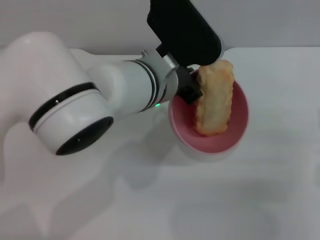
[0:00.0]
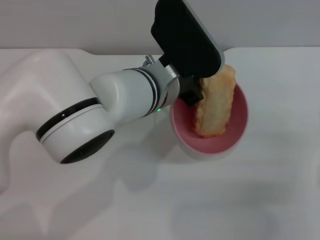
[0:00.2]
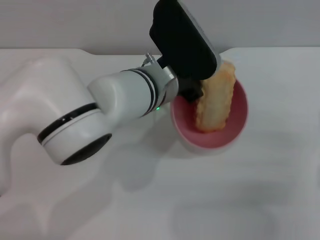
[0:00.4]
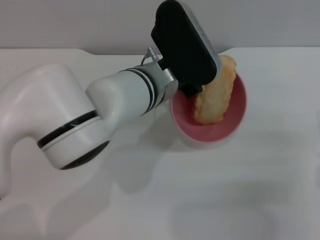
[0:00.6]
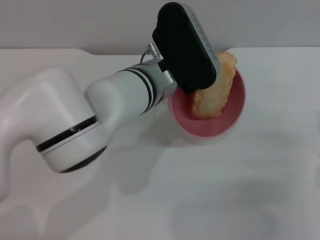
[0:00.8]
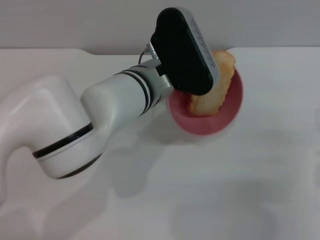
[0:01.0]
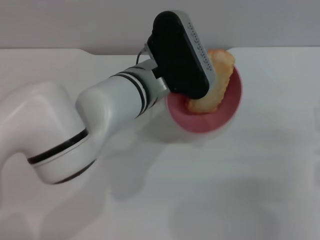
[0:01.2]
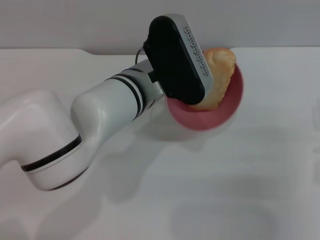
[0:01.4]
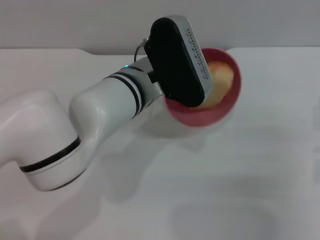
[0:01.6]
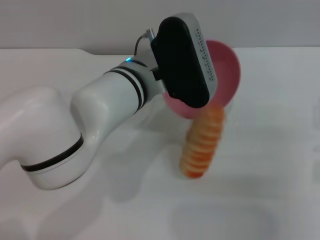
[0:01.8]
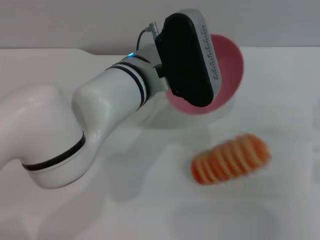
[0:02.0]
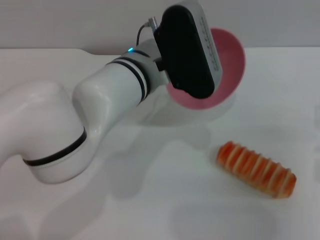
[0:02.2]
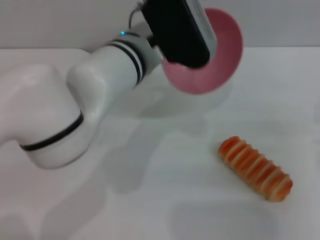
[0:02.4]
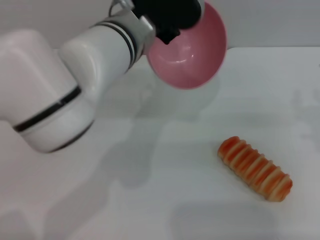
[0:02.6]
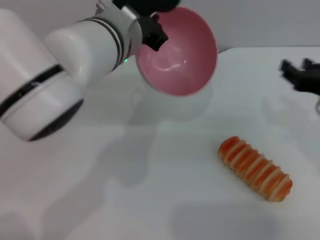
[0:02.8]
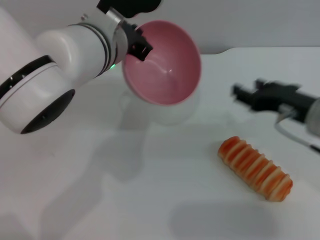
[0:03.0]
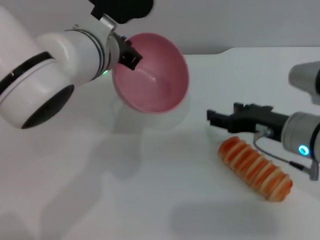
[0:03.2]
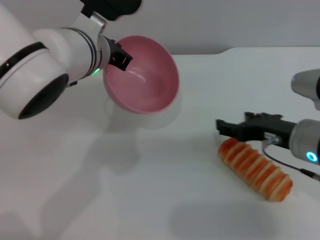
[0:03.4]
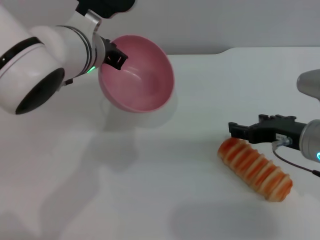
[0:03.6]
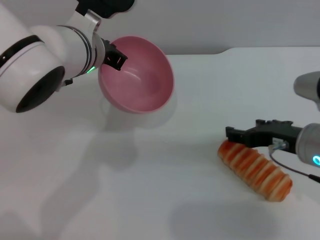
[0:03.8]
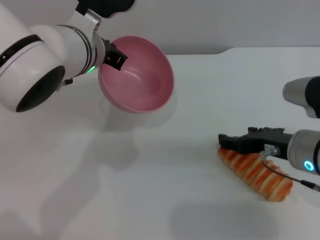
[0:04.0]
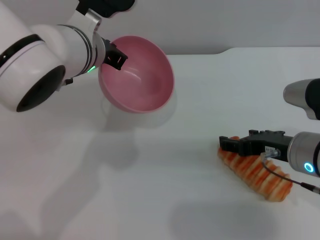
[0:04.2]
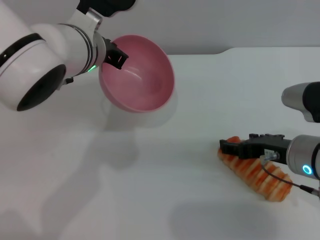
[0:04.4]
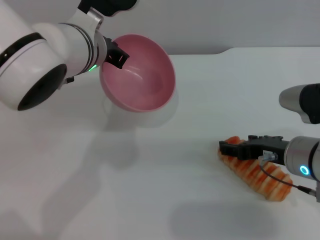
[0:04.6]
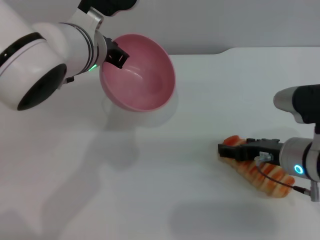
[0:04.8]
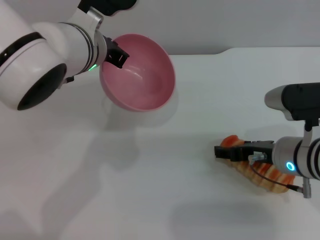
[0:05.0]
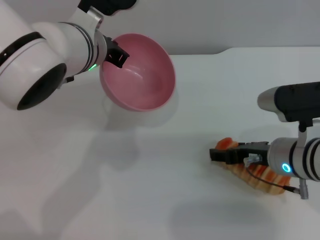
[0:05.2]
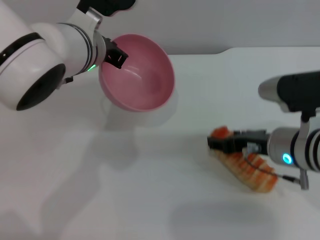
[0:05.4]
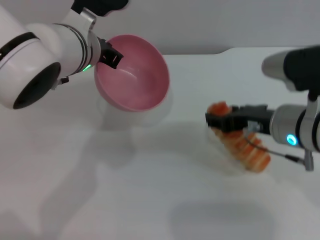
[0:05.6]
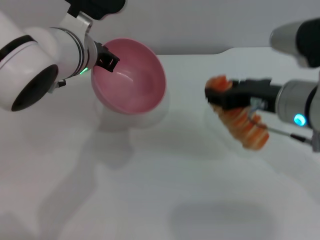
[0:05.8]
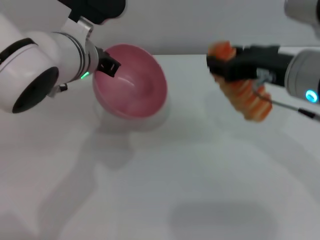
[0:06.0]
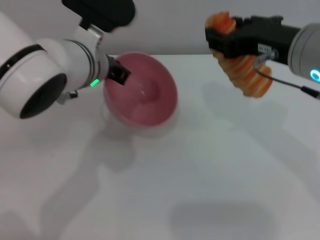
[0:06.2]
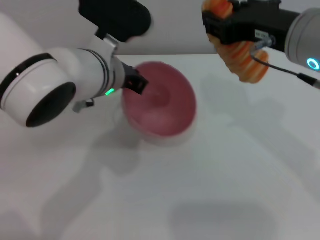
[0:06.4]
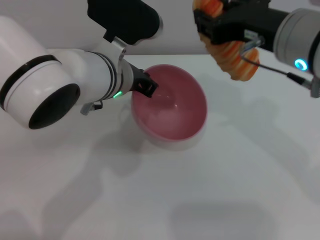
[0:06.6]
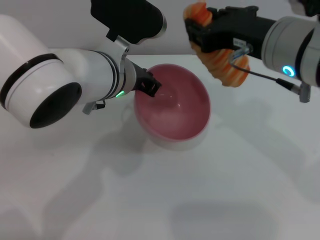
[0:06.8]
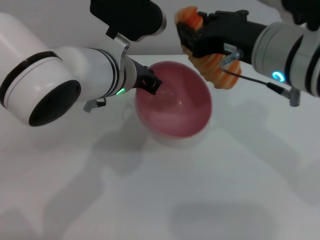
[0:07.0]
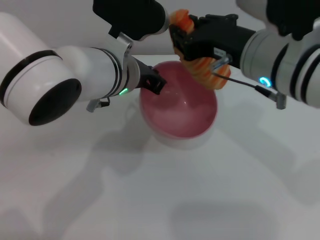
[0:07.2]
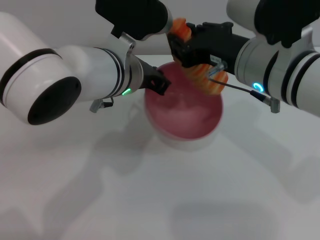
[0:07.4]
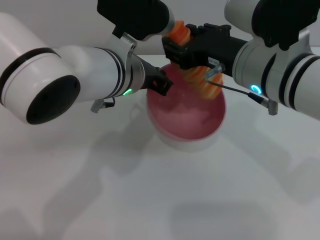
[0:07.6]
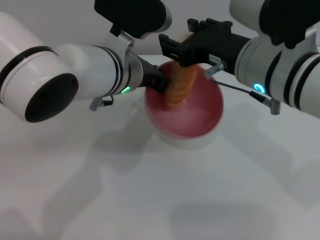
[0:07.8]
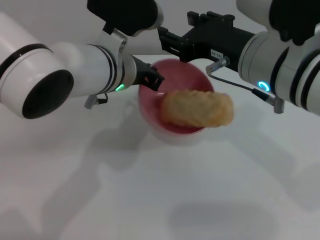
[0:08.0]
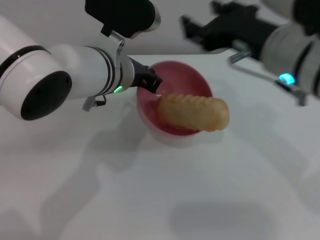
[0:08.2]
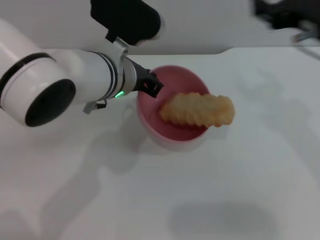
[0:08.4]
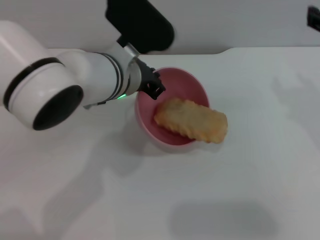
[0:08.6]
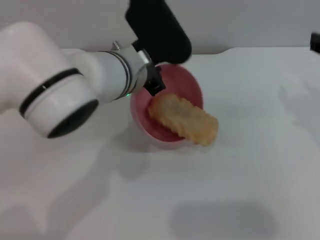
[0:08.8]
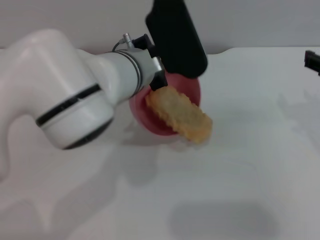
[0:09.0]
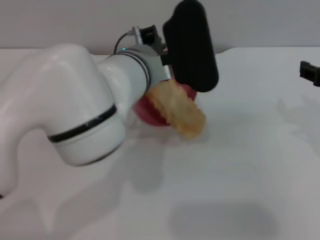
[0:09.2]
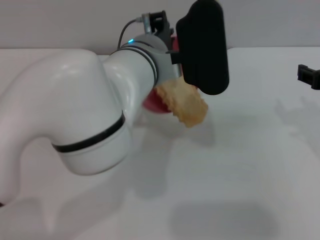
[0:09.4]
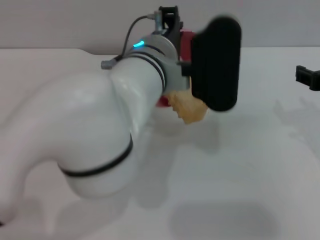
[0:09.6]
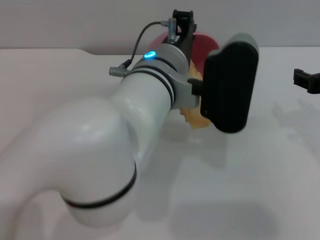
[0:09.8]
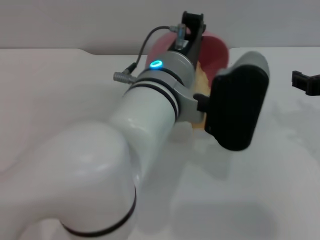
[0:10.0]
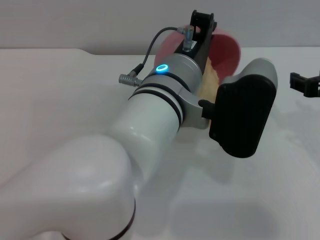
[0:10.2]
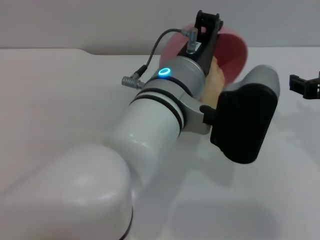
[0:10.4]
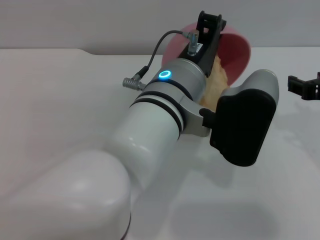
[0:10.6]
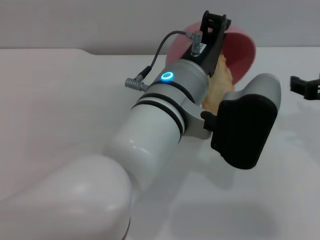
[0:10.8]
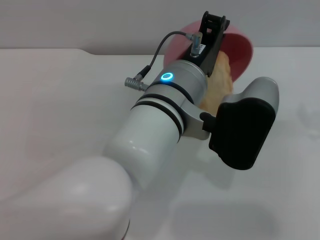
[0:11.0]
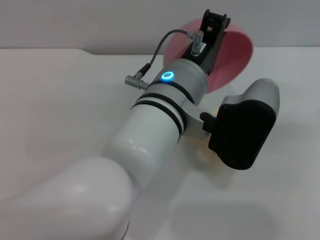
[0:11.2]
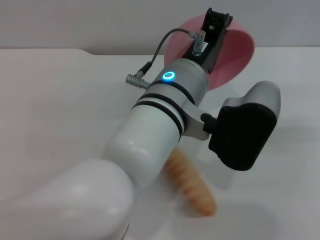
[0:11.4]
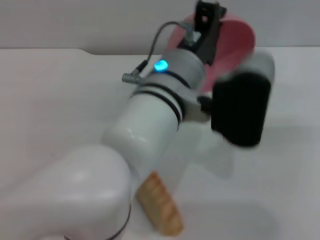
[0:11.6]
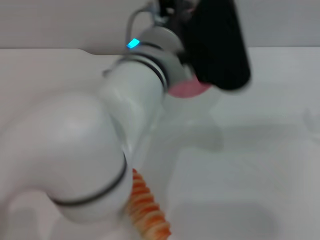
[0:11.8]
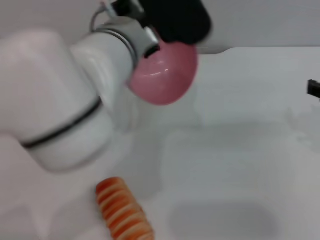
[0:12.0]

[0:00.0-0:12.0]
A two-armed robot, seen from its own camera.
Task of the whole recording: put the bread into the pink bowl and pour it out repeatedly.
Step, 0:00.0 to 0:02.2: Pour the bread out of the bowl.
Step, 0:02.4 to 0:06.0: Pick up the bread with the right gripper.
Step, 0:06.2 to 0:08.0: Place the bread into the bowl.
Step, 0:08.4 to 0:11.4: Pour the bread out of the bowl.
0:01.6 to 0:03.0: The left gripper travels upward by some 5 cm. Meanwhile the right gripper shifts roughly 5 cm to the left.
0:04.4 to 0:06.0: The right gripper moves upward, about 10 cm.
0:06.0 to 0:07.6: The right gripper shifts by some 5 cm. Meanwhile the left gripper shifts by roughly 5 cm.
0:07.6 to 0:09.0: The right gripper is displaced to the right by some 15 cm.
0:09.0 to 0:10.4: The left gripper moves backward, some 5 cm.
0:10.4 to 0:12.0: The left gripper goes about 5 cm to the left.

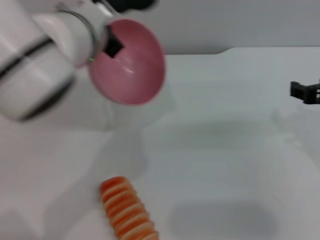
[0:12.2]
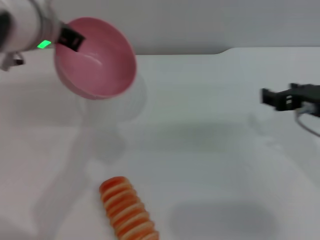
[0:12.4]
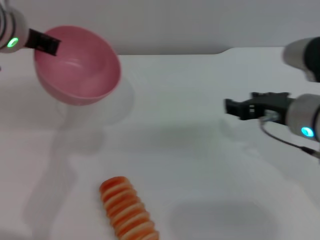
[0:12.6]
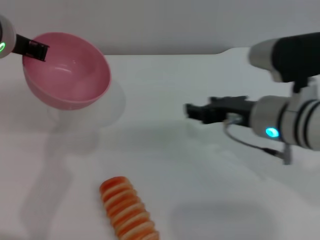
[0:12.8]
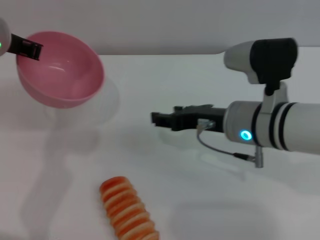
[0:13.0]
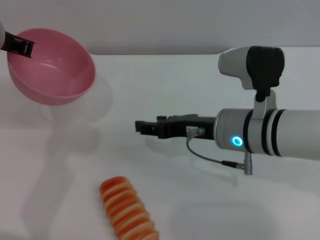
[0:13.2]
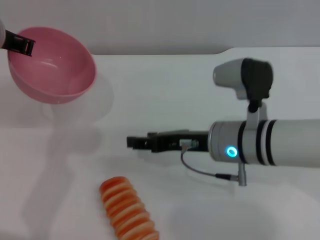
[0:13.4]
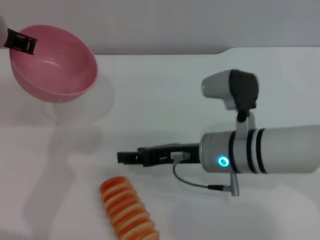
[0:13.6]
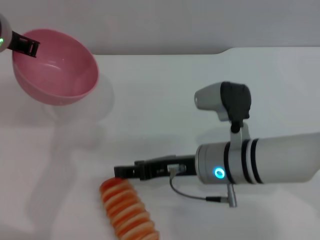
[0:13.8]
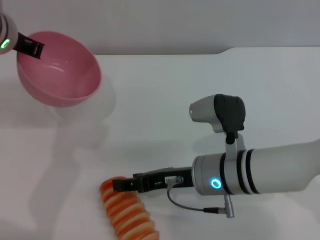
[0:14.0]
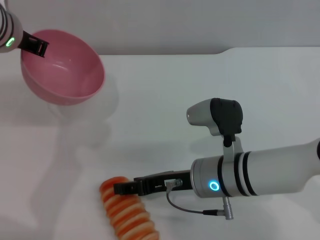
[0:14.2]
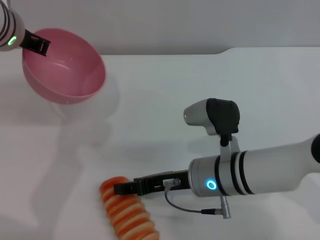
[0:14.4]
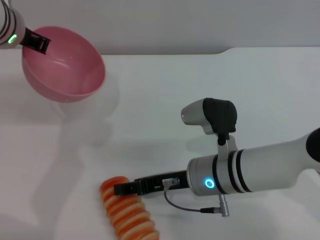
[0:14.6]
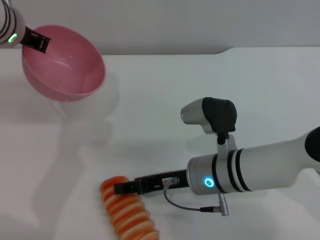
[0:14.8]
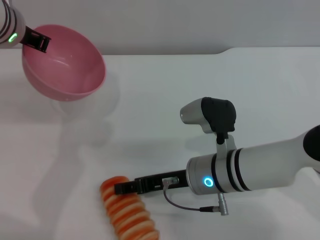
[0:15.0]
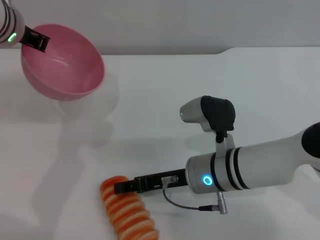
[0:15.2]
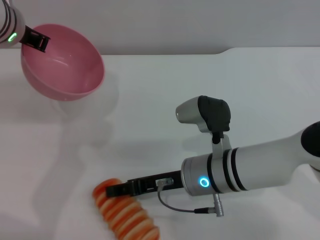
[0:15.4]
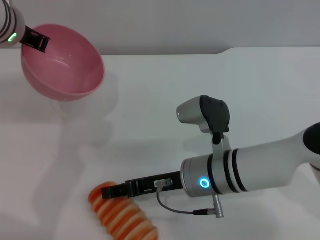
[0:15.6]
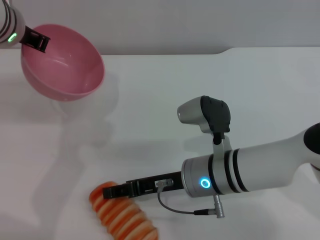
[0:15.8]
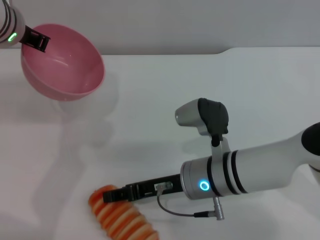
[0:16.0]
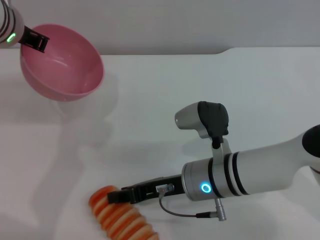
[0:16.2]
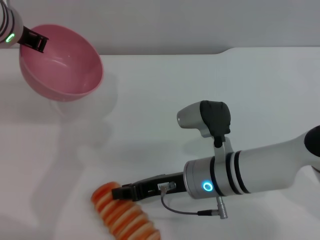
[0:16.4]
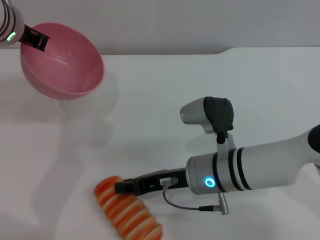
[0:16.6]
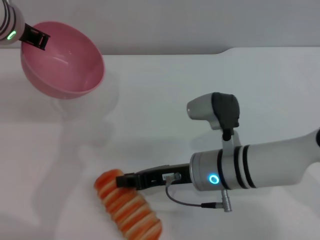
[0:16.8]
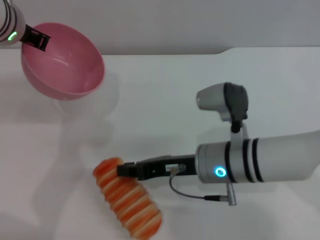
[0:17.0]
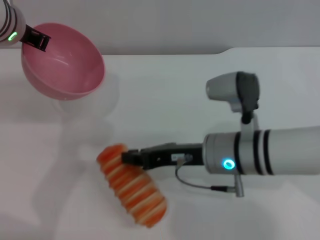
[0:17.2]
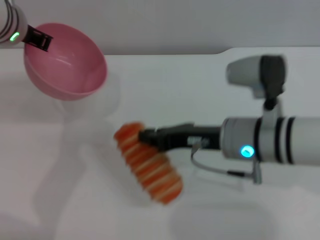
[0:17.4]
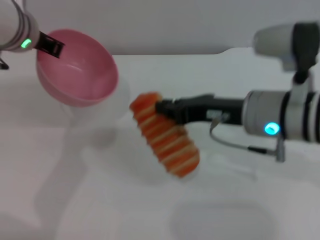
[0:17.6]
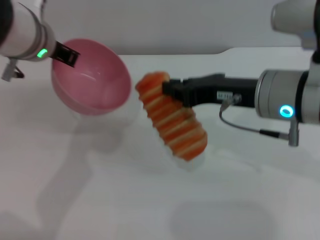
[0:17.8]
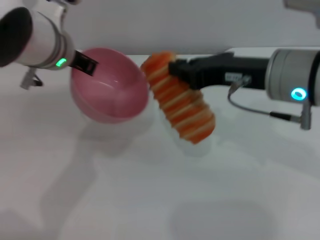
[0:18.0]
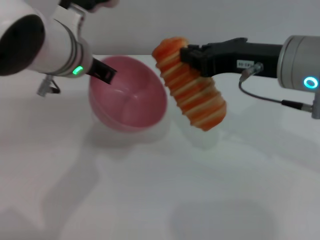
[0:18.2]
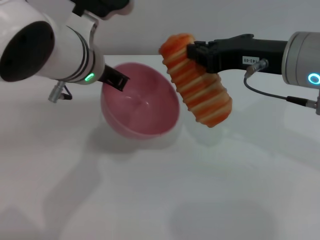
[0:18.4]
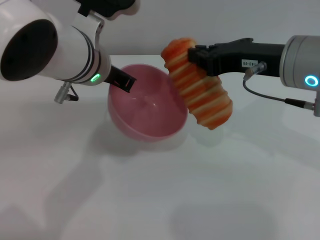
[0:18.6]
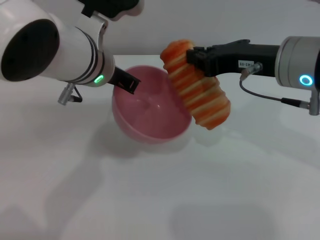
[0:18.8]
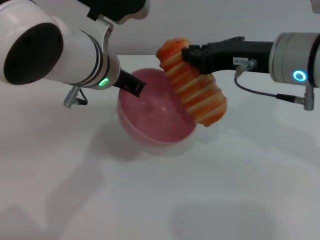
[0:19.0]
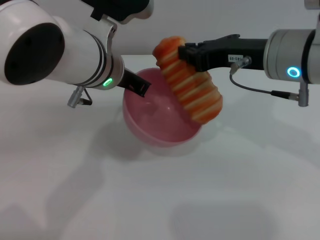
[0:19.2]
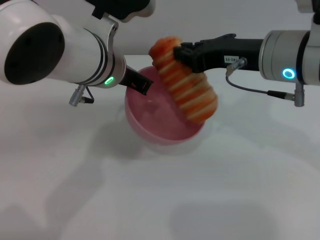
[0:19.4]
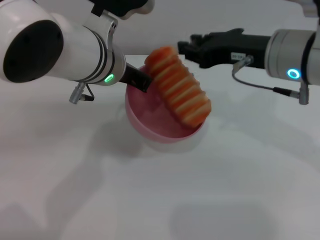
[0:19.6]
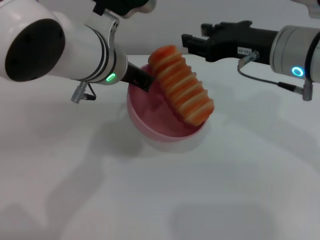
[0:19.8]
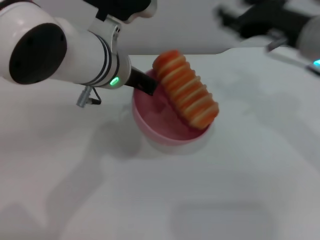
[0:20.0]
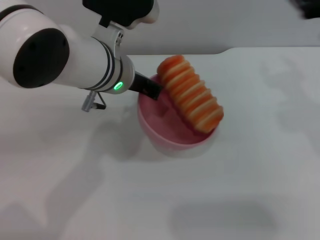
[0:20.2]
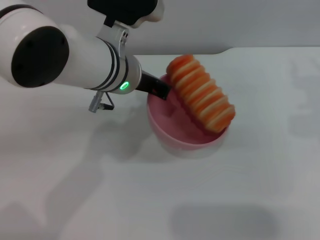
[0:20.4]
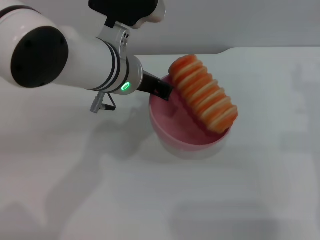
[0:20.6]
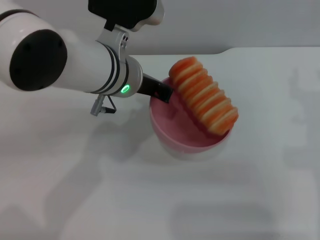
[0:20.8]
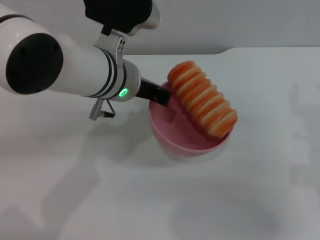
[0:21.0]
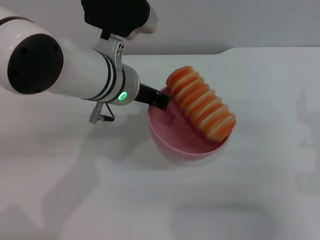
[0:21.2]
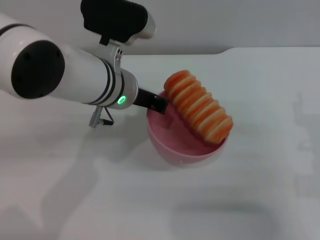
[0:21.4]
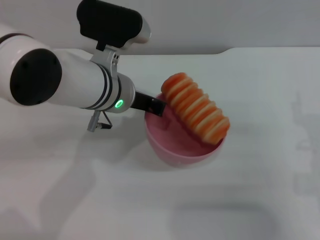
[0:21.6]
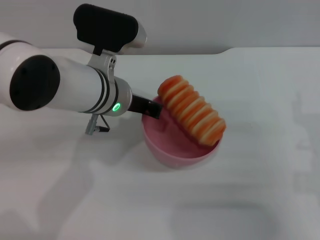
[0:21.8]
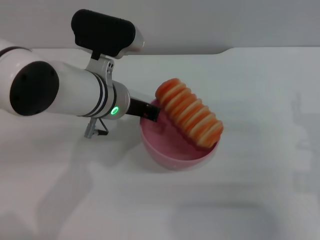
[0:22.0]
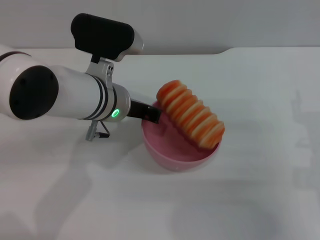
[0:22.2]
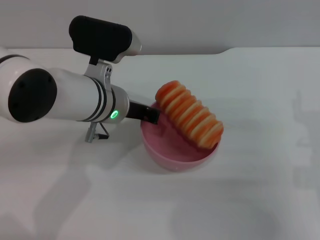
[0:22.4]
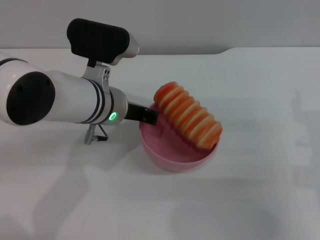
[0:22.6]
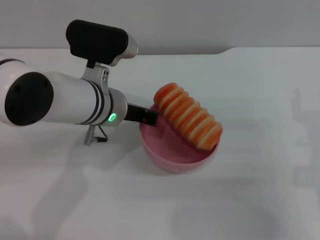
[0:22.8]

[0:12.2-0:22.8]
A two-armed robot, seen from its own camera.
Task of the whole recording: put the bread into the pink bowl and pour it out repeatedly.
Step, 0:12.2 to 0:17.4: Pick up the bread with the right gripper.
Step, 0:17.6 to 0:19.8: Place the bread into the bowl.
0:12.2 to 0:13.8: The left gripper moves to the left, approximately 10 cm; the right gripper goes approximately 20 cm to the left and downward.
0:13.8 to 0:15.2: The grippers move only a little.
0:15.2 to 0:16.8: The right gripper closes.
0:16.8 to 0:18.2: The left gripper goes approximately 5 cm to the right. The right gripper is displaced upward and to the right by some 20 cm.
0:18.2 to 0:19.8: The right gripper opens.
0:19.8 to 0:21.2: The right gripper is displaced downward, to the right and backward by some 15 cm.
